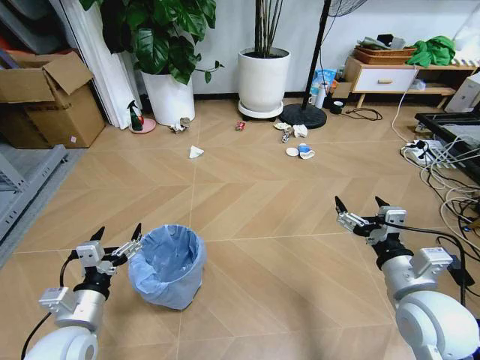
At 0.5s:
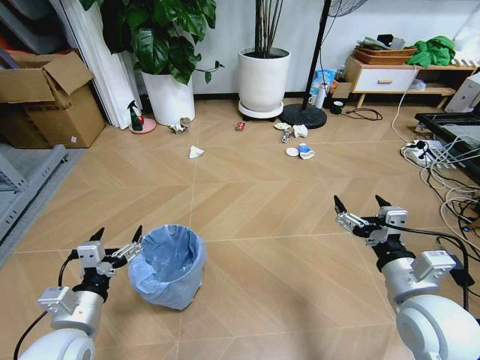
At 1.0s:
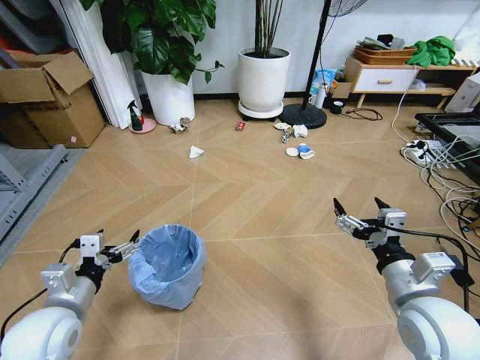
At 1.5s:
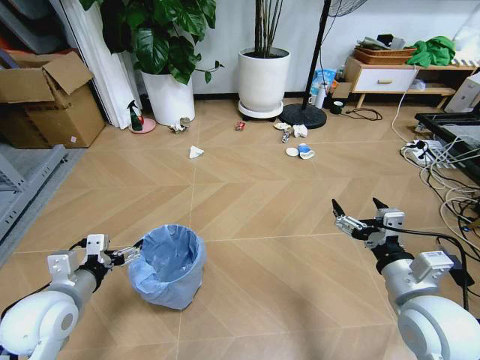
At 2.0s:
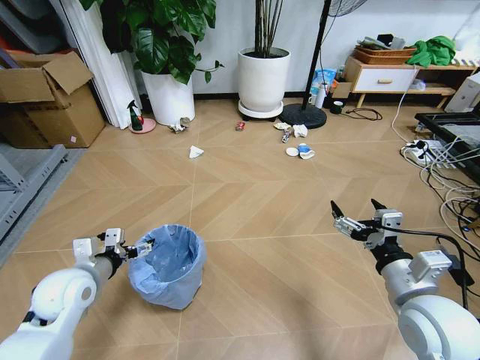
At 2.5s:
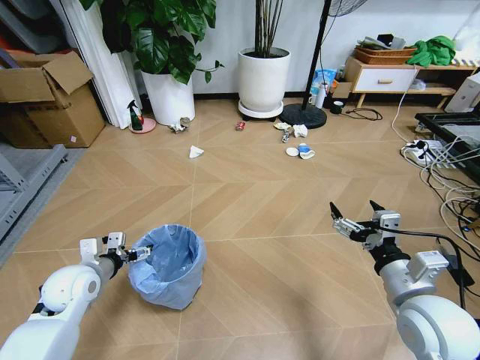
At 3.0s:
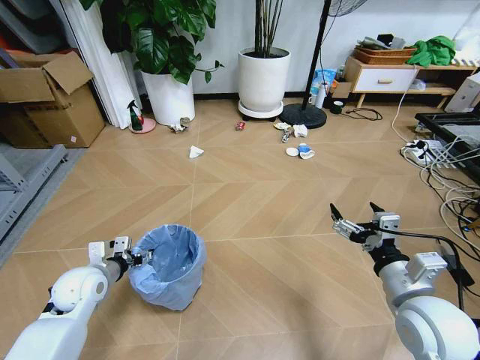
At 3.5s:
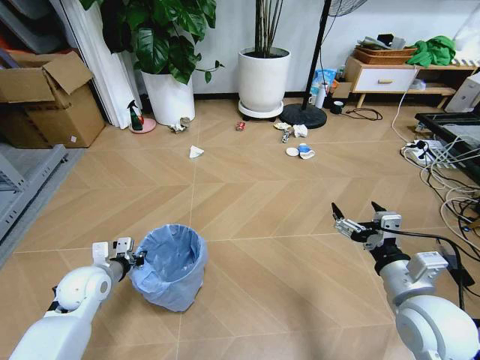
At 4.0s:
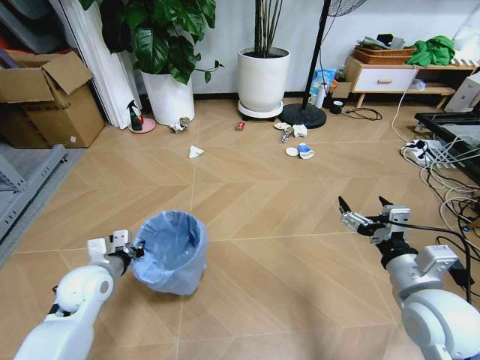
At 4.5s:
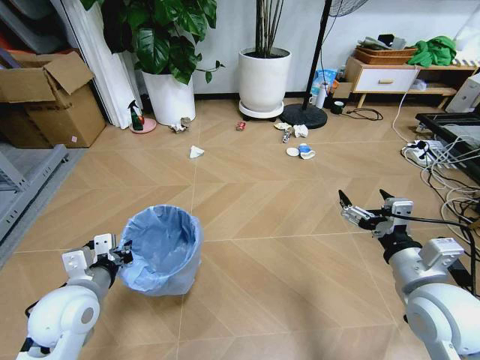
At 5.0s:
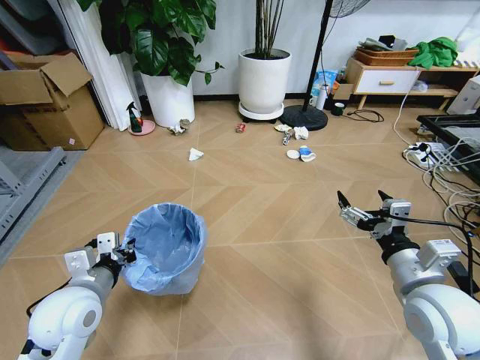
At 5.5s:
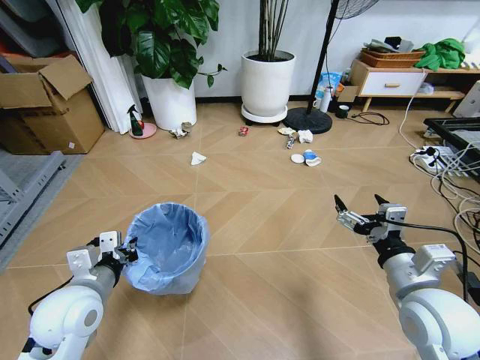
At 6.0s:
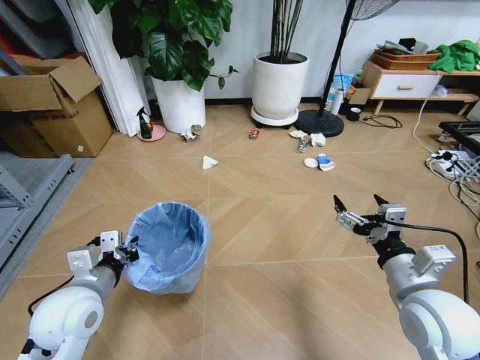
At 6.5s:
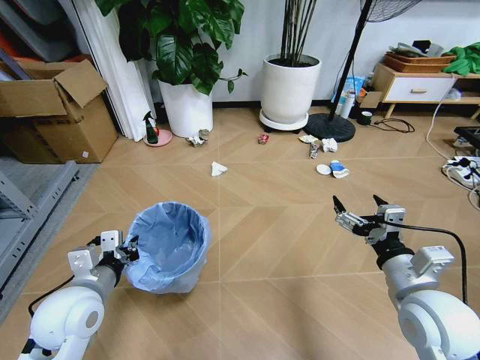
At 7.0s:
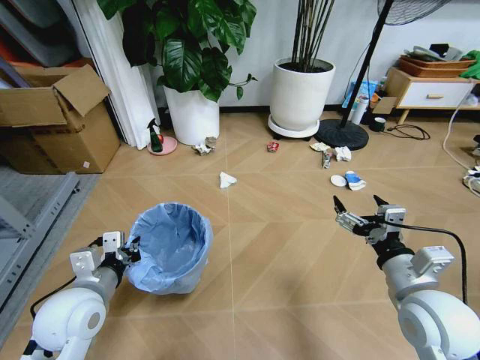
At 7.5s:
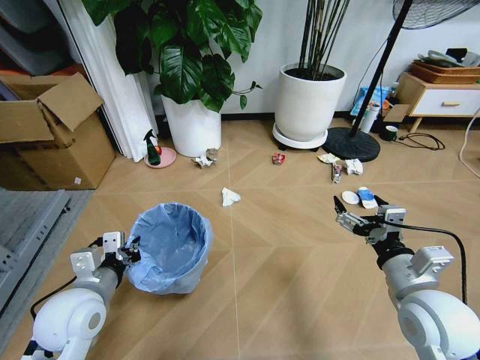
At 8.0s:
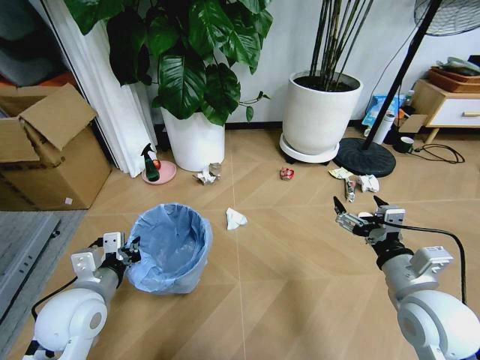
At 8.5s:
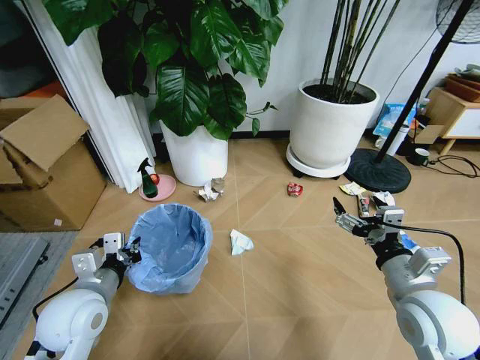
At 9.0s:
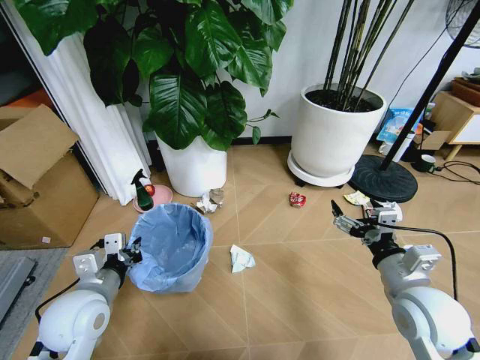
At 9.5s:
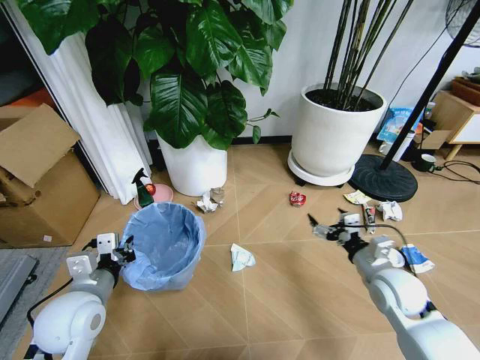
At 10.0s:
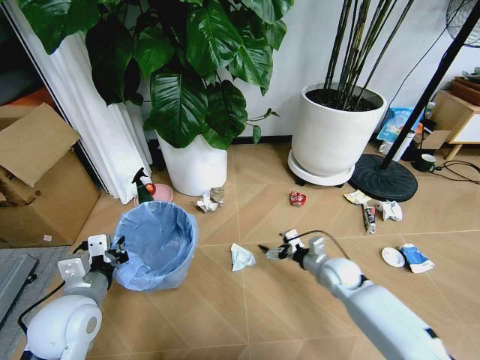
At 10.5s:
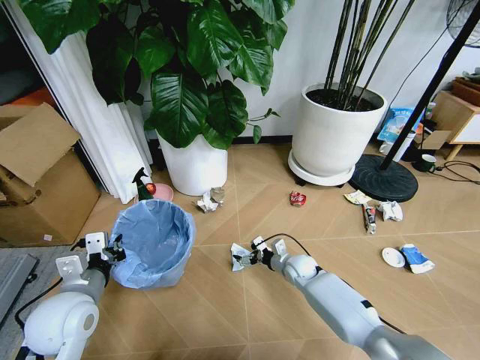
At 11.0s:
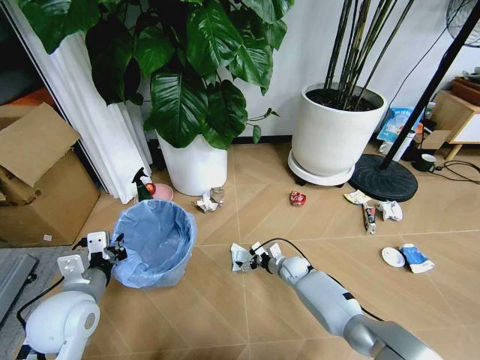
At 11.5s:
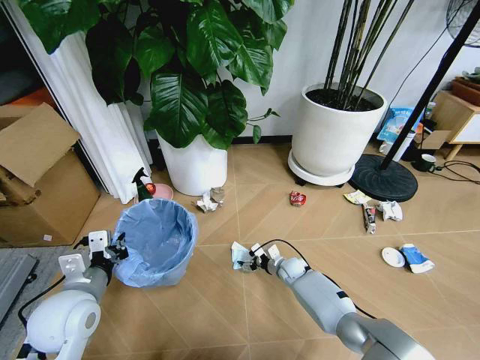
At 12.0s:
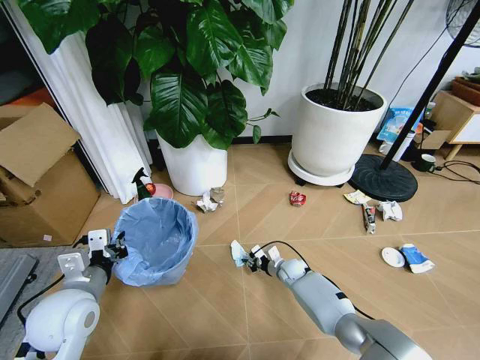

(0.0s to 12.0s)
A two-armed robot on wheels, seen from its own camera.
Task of the whole recording: Pick up the trash bin and place the garbage on the floor into it.
2.0s - 4.0s: The left gripper closes its fingers.
4.0s - 6.0s: The left gripper is displaced backward and upward by roughly 10 cm.
8.0s - 10.0s: The right gripper goes about 25 cm downward and forward.
10.0s - 12.0s: The right gripper shifts some 15 cm downward, to the left and forward, and closes its fingers.

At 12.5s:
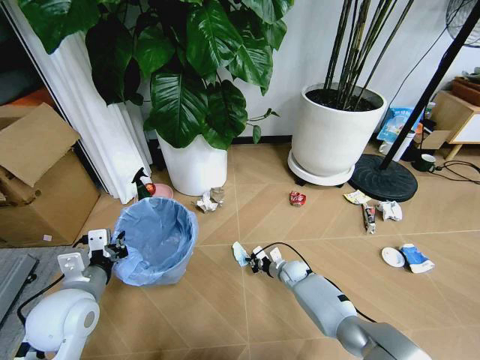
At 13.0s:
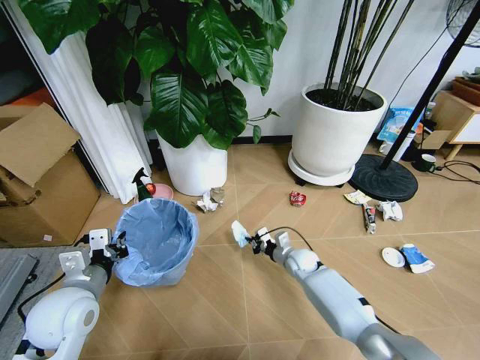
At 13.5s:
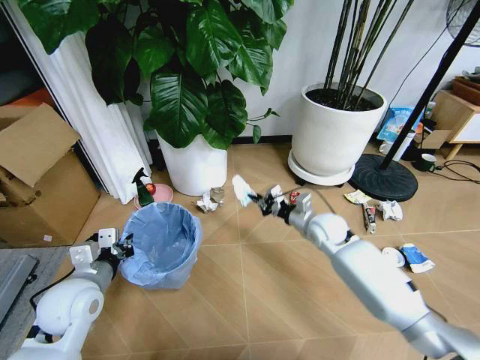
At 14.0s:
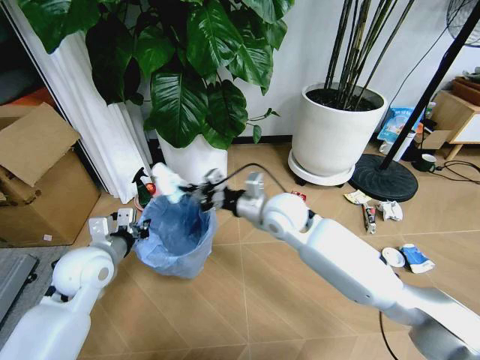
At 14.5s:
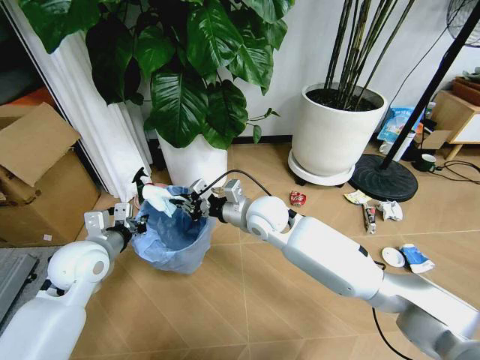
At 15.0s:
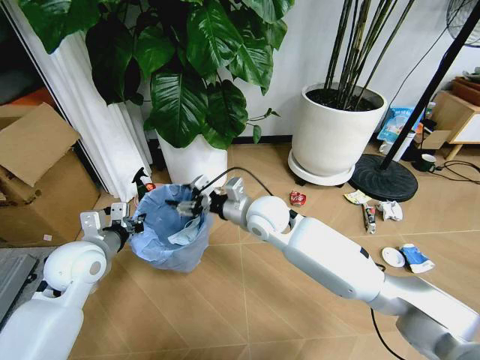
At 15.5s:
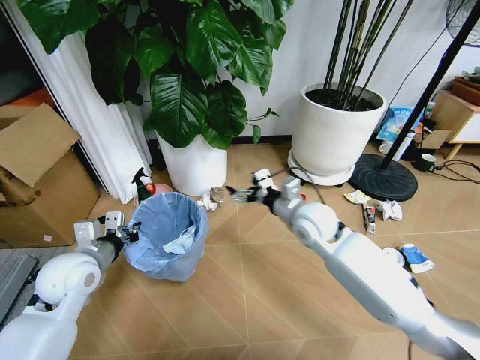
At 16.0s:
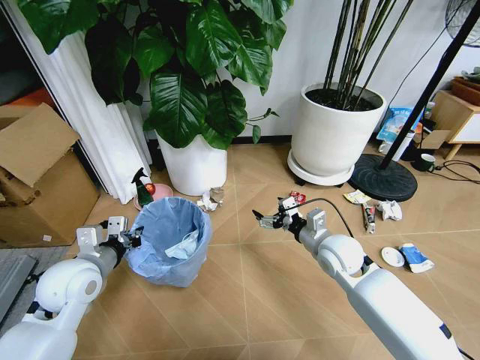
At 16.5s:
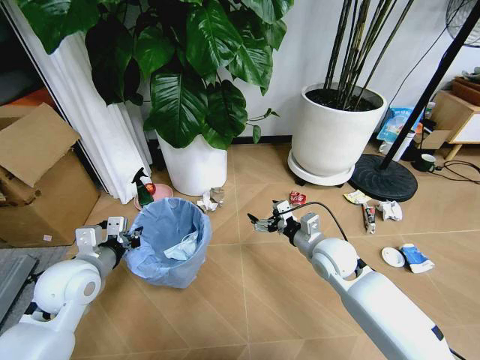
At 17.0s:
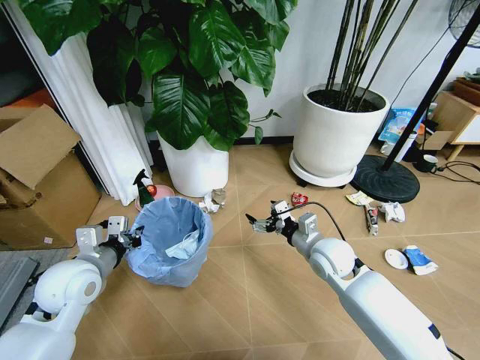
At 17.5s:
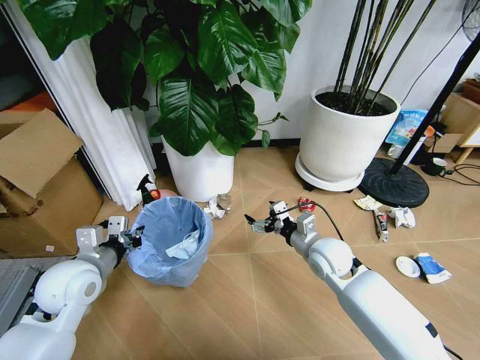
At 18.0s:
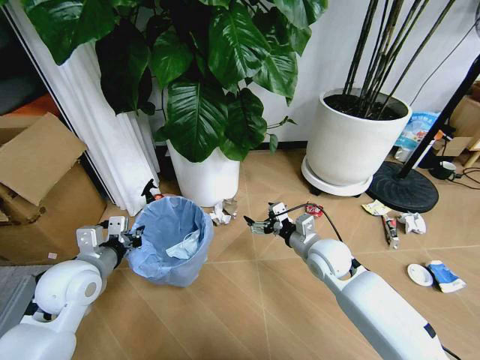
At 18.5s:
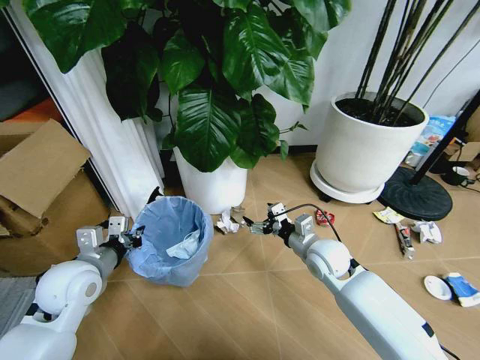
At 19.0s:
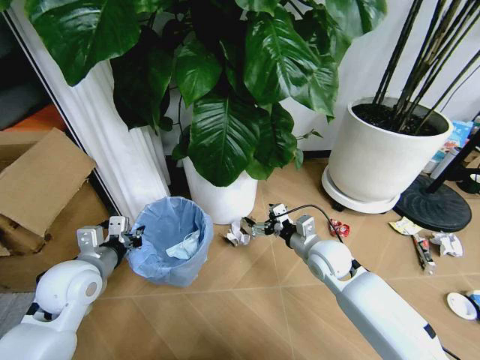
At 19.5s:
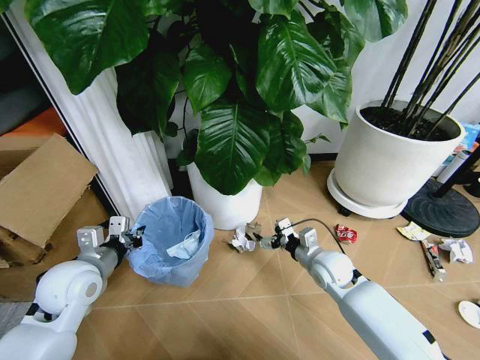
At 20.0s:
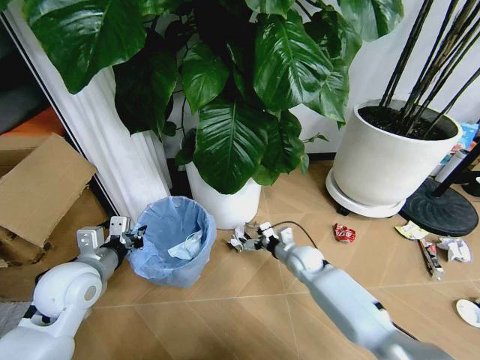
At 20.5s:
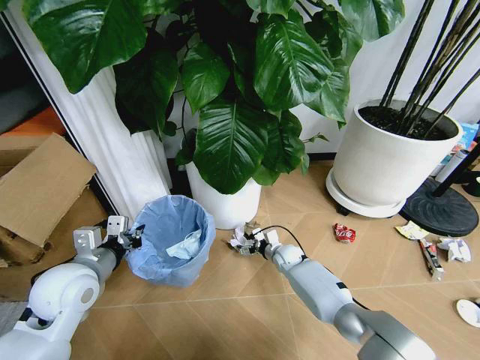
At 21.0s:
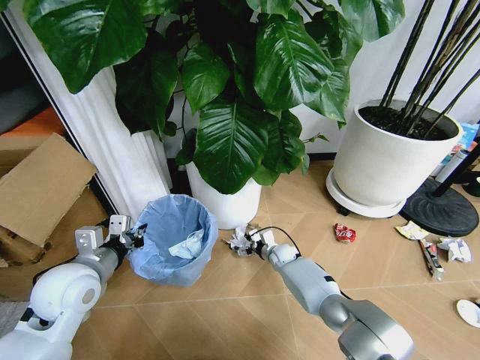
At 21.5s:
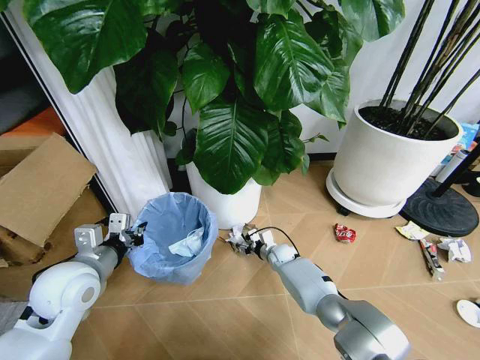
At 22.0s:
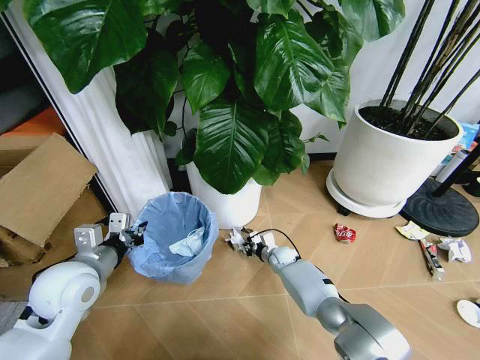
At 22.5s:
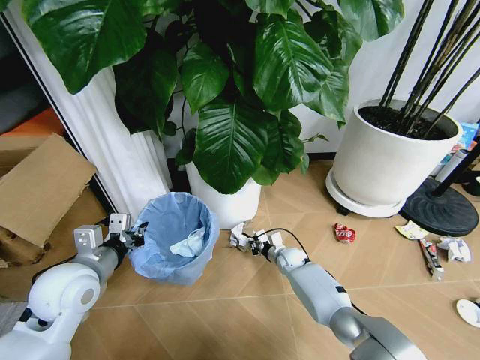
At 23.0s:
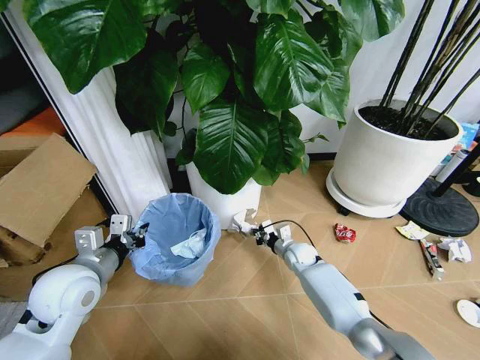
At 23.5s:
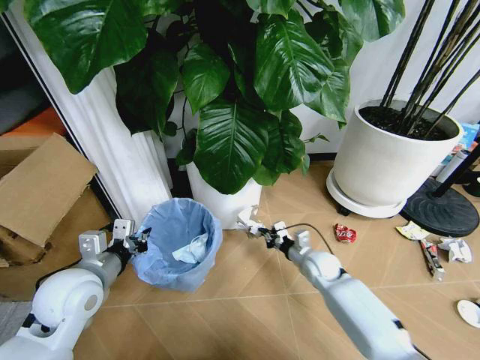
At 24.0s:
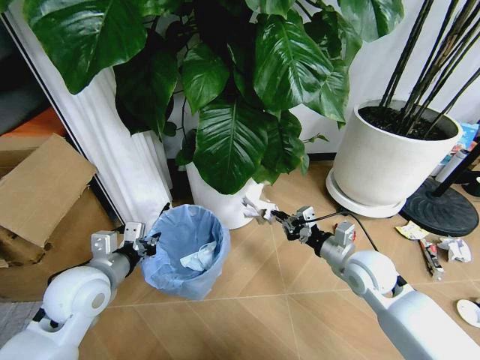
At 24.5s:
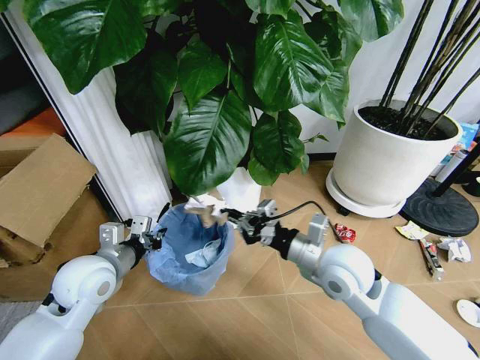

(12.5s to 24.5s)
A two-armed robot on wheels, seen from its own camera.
Task of the whole recording: Pick up the trash bin and place the garbage on the floor into it.
12.5s - 14.5s: The right gripper heads upward, covering some 35 cm; the left gripper goes some 10 cm forward.
14.5s - 16.5s: The right gripper travels to the right, downward and backward by about 20 cm, and opens its fingers.
18.5s - 20.5s: The right gripper heads downward and forward, covering about 20 cm.
20.5s - 22.5s: The right gripper closes its fingers.
22.5s - 24.5s: The right gripper shifts roughly 35 cm upward and backward.

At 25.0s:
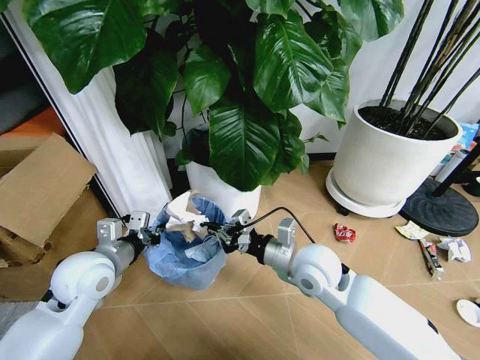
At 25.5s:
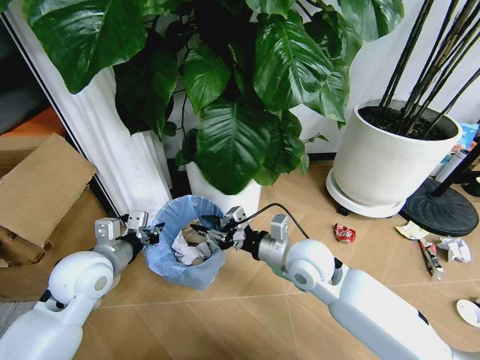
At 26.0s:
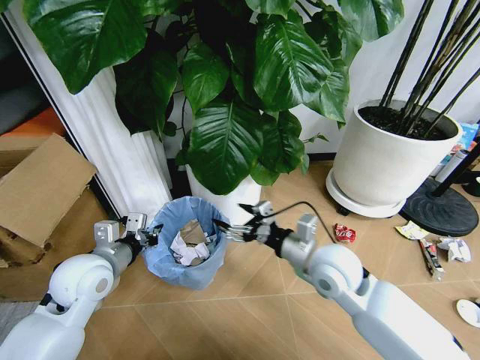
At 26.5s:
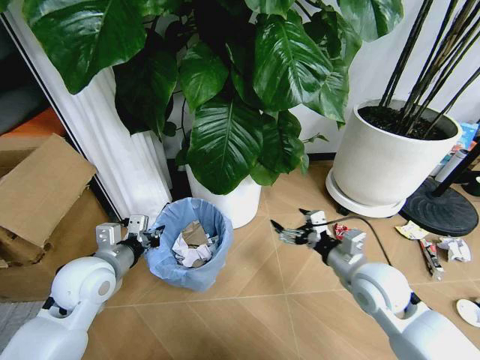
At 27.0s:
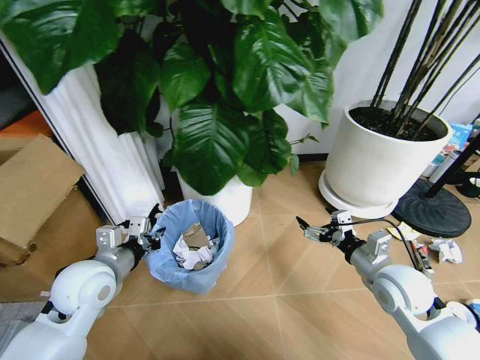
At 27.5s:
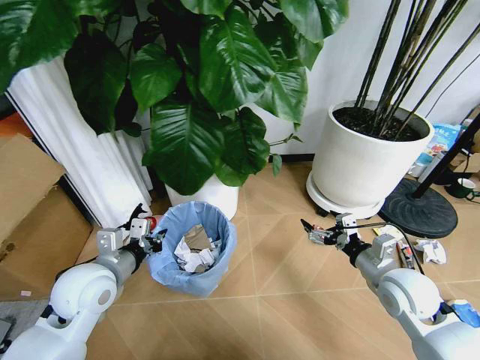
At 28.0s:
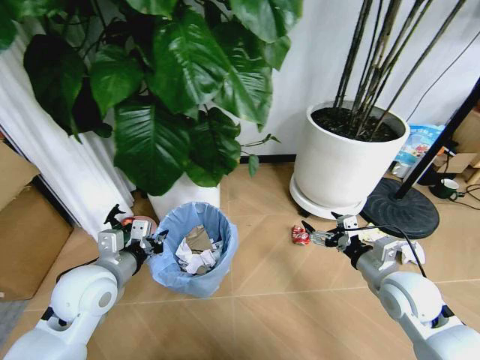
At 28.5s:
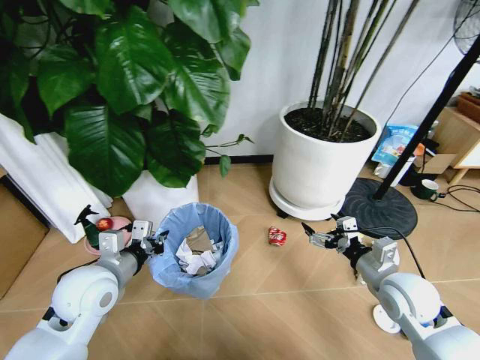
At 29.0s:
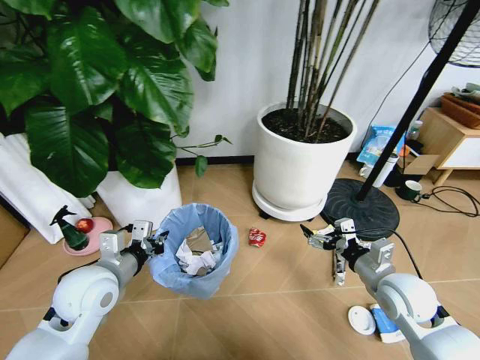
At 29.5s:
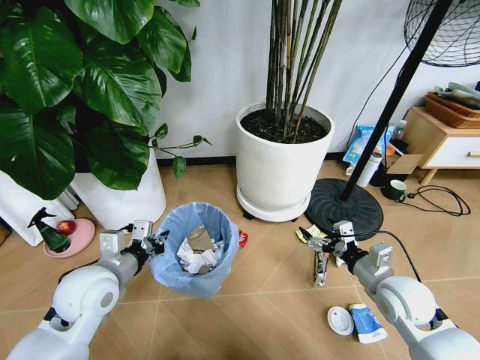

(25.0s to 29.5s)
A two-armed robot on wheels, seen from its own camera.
Task of the whole recording: Pick up the trash bin and place the garbage on the floor into it.
25.0s - 27.0s: The right gripper goes roughly 15 cm to the right, and opens up.
